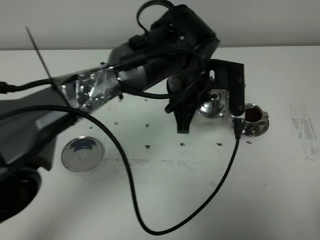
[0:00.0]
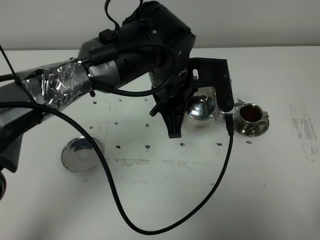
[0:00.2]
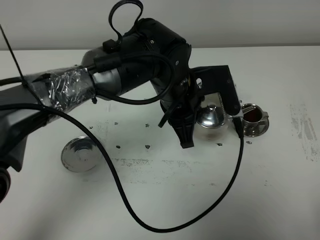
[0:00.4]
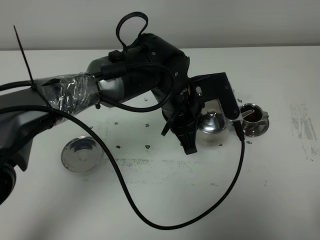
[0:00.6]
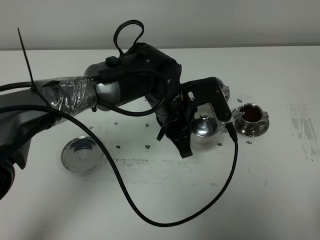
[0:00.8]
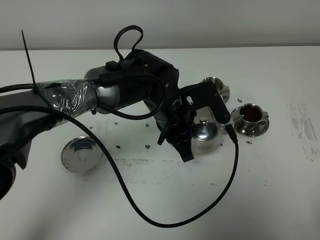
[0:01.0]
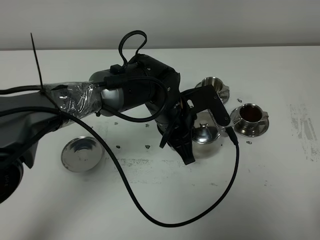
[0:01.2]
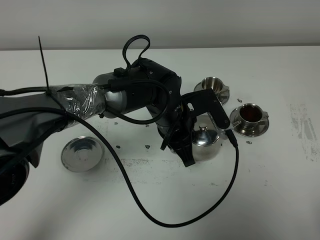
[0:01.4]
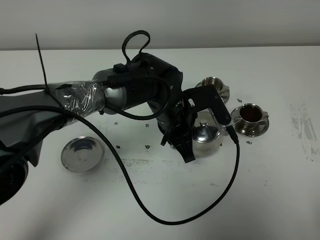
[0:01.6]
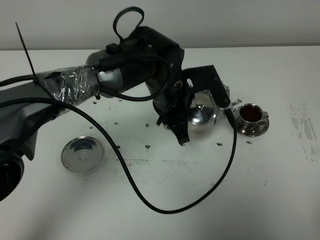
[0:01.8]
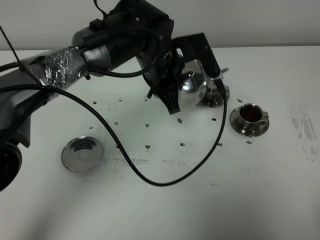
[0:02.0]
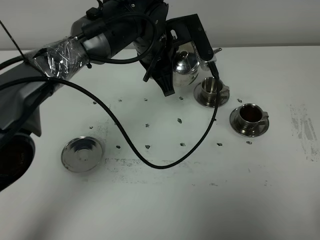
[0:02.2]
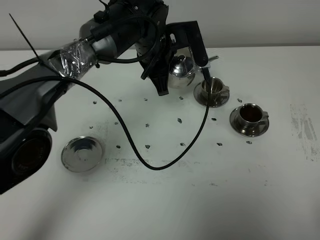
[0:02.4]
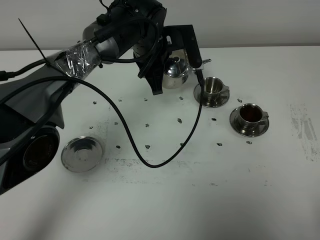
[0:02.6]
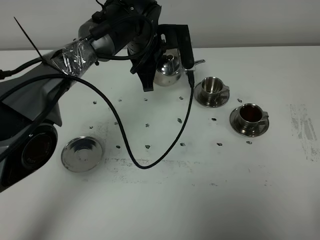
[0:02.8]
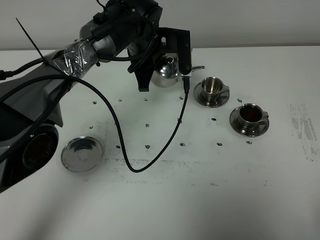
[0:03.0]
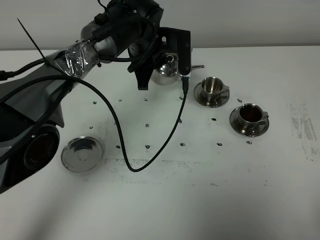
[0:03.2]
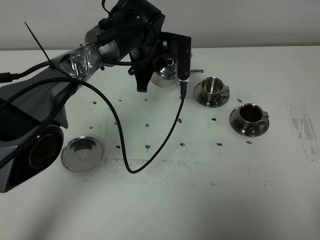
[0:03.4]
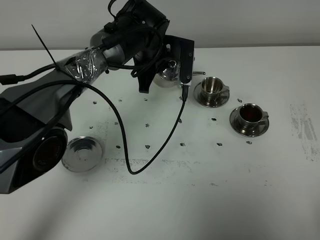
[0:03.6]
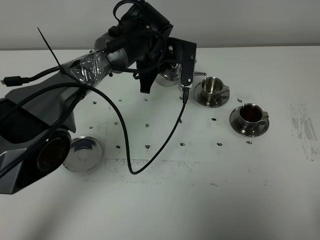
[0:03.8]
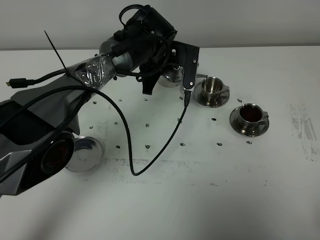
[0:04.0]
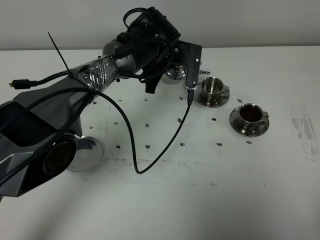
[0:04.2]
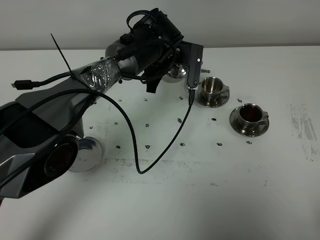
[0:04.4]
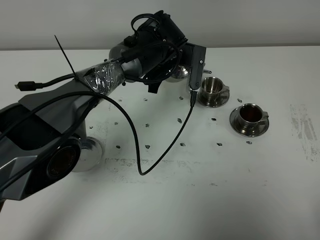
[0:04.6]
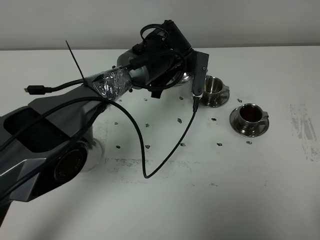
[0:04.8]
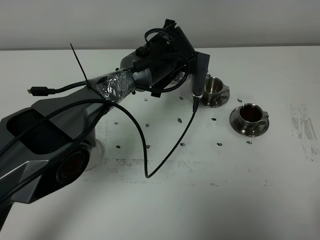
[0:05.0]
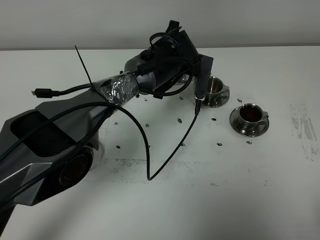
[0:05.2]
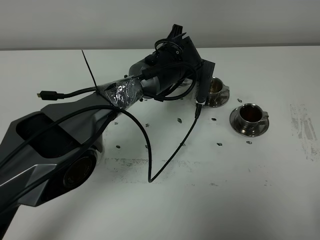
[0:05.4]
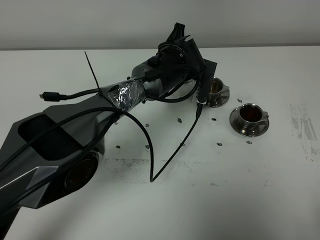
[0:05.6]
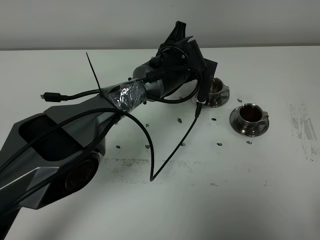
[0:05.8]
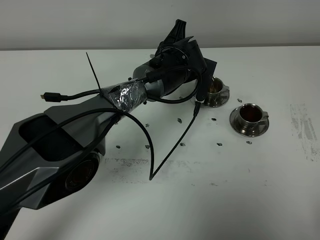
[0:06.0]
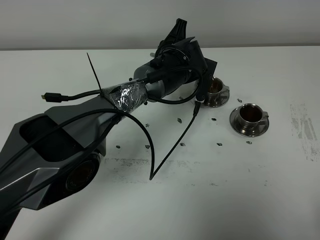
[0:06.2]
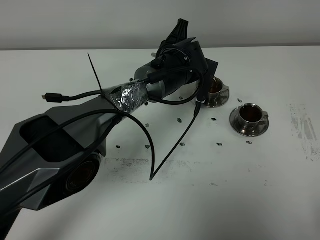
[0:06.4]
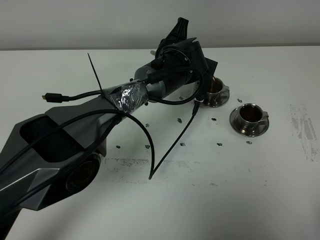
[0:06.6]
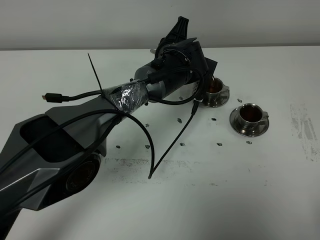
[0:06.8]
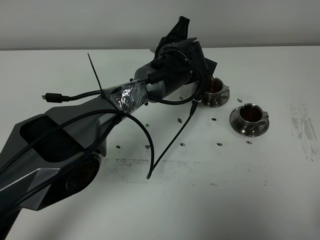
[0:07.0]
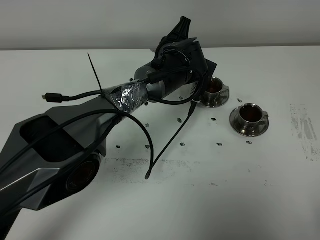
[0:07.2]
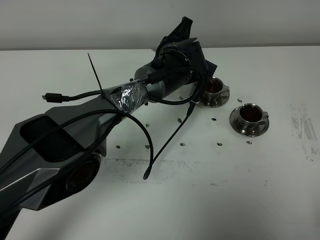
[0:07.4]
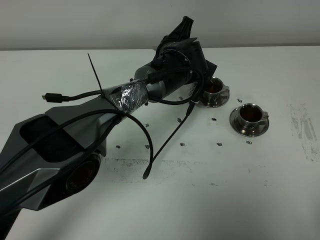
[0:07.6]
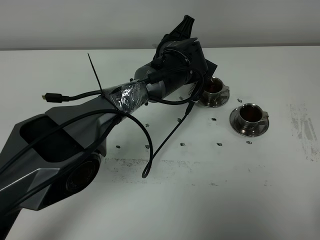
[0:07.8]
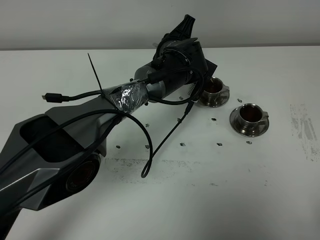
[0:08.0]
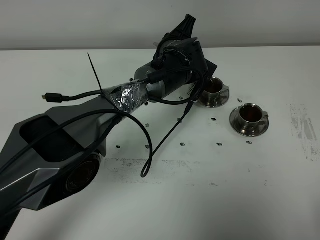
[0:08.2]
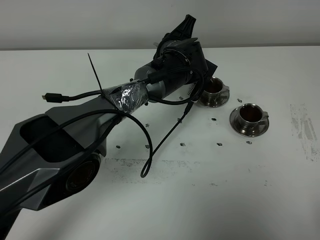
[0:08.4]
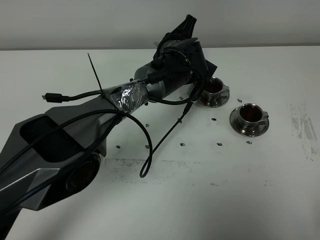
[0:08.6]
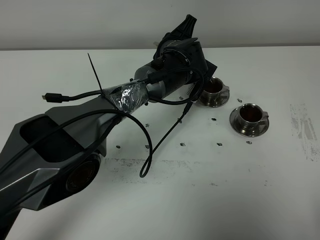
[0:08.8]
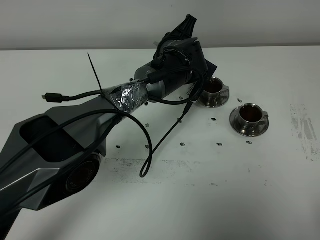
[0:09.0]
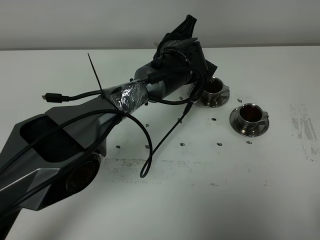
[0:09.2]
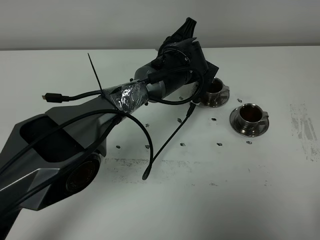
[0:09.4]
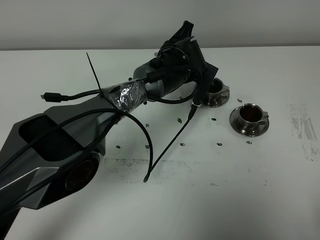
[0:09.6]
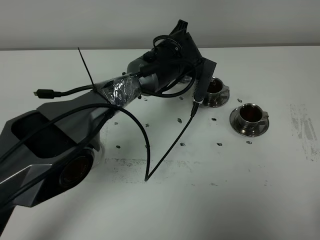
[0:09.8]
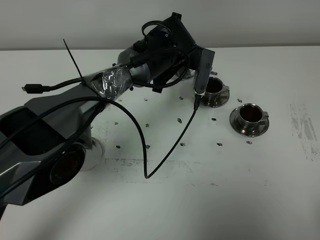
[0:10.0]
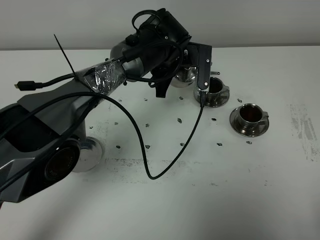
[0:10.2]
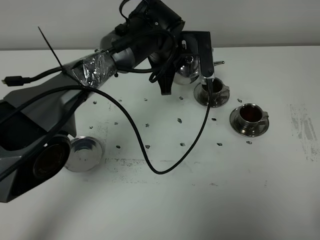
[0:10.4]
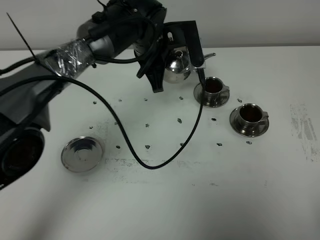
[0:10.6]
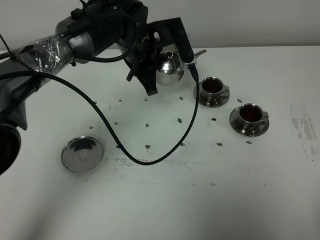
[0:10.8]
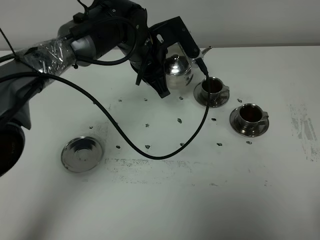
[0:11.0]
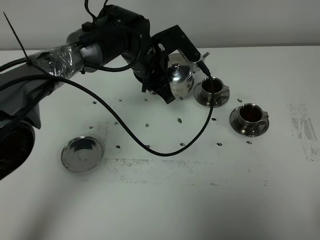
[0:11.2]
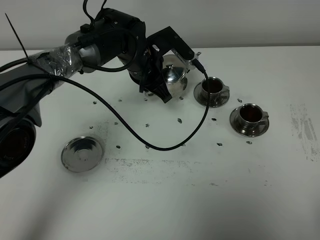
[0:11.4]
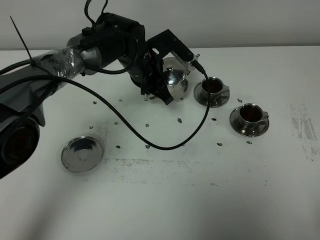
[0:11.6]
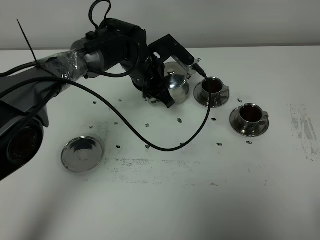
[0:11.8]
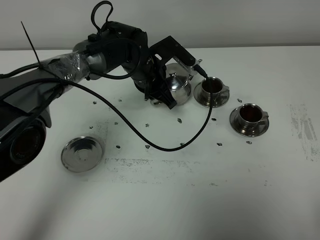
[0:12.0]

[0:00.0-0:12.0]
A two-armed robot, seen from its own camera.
Task of the whole recording: grasp the stainless steel teapot and pour the tea into the two stainless steel teacups one by one, put the stainless steel teapot back in its original place.
Step, 0:00.0 to 0:10.0: Pour tea into the teacup with the left gripper.
0:00.0 to 0:01.6: The left gripper travels downward by roughly 10 cm.
0:01.6 to 0:03.0: The left gripper moves forward, about 10 cm.
0:03.0 to 0:04.4: The grippers stay close to where they were, moving slightly.
0:06.0 to 0:07.6: There are only small adjustments of the grippers.
0:07.6 to 0:09.0: Both grippers stay put.
0:09.0 to 0:10.4: The left gripper shifts by some 5 cm.
0:10.4 to 0:12.0: The left gripper moves downward, roughly 5 cm.

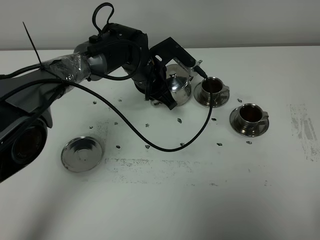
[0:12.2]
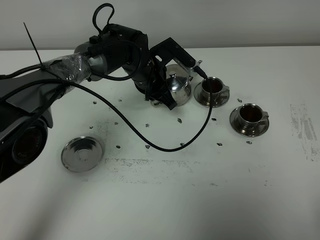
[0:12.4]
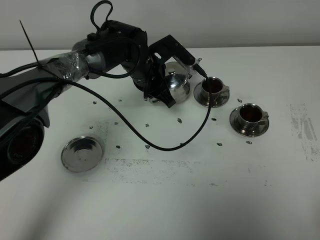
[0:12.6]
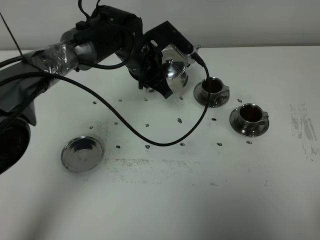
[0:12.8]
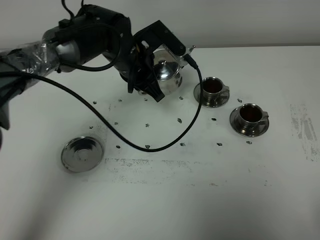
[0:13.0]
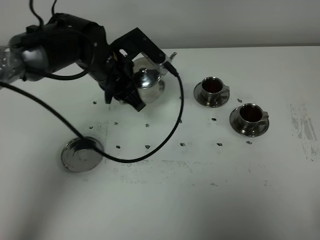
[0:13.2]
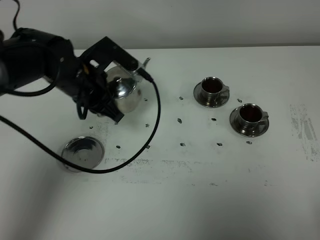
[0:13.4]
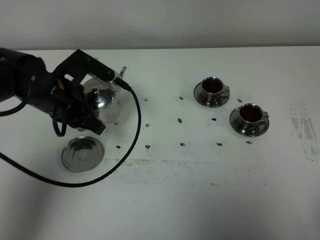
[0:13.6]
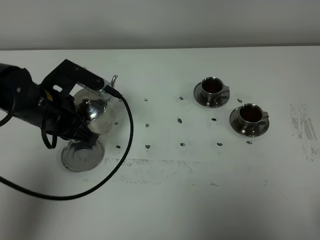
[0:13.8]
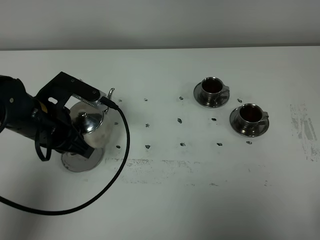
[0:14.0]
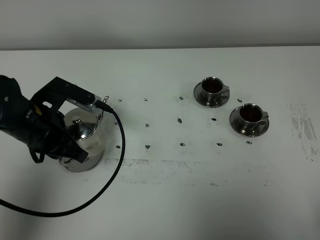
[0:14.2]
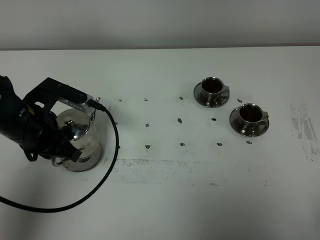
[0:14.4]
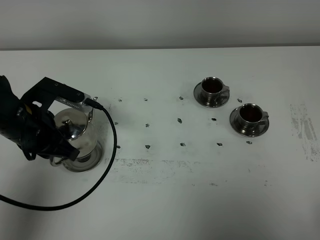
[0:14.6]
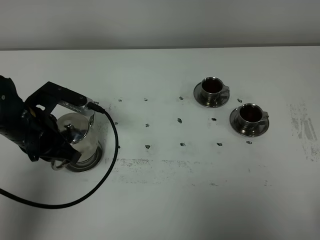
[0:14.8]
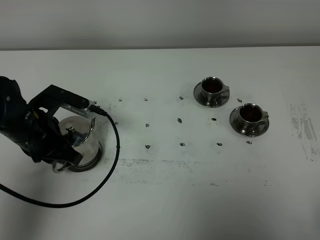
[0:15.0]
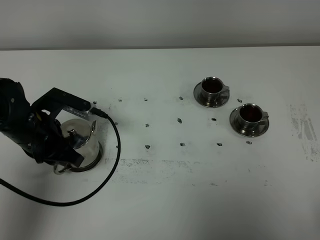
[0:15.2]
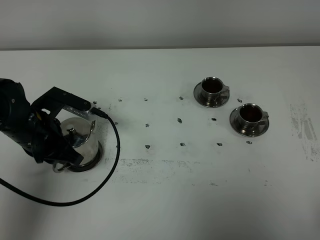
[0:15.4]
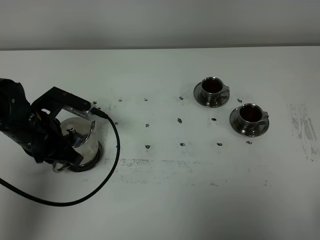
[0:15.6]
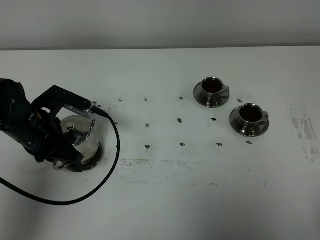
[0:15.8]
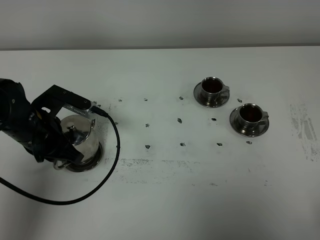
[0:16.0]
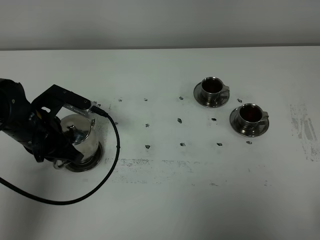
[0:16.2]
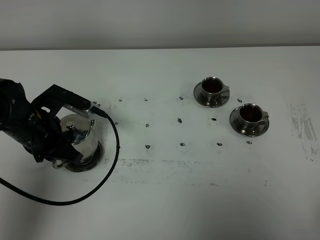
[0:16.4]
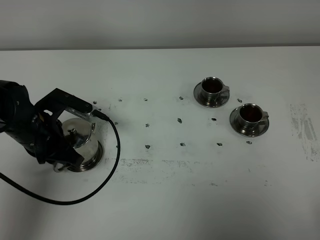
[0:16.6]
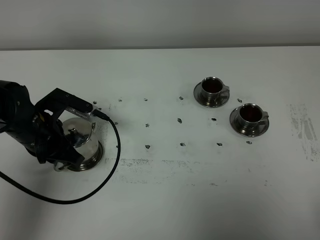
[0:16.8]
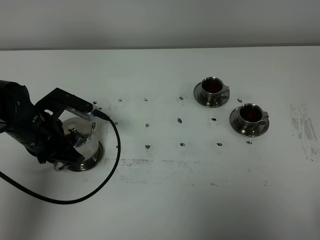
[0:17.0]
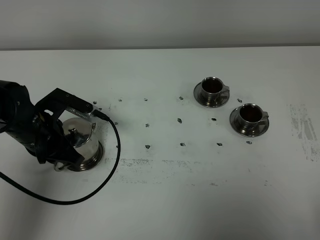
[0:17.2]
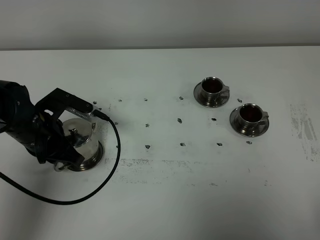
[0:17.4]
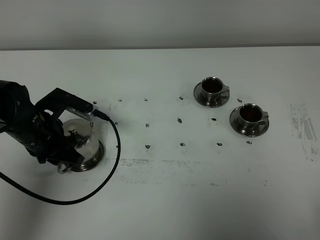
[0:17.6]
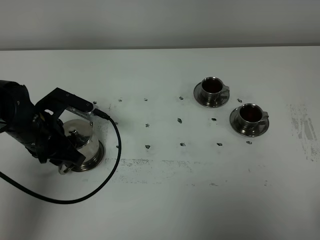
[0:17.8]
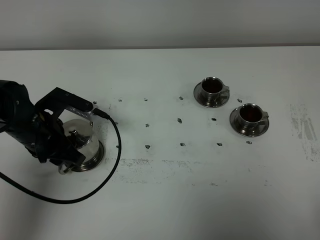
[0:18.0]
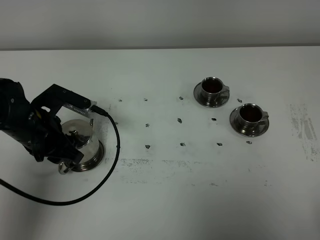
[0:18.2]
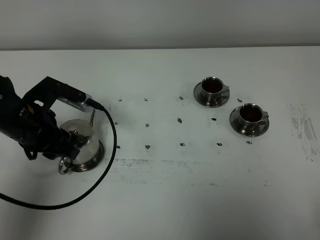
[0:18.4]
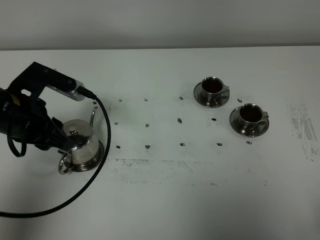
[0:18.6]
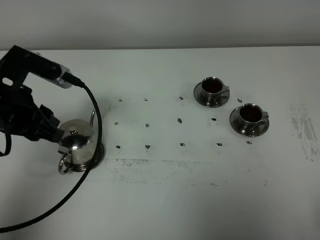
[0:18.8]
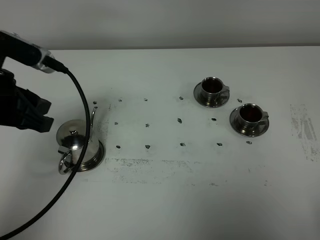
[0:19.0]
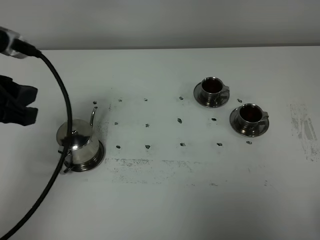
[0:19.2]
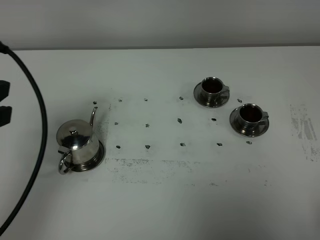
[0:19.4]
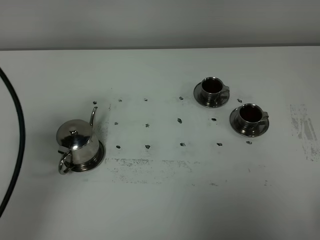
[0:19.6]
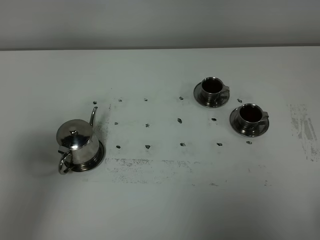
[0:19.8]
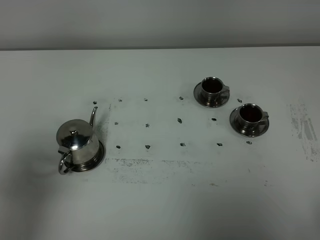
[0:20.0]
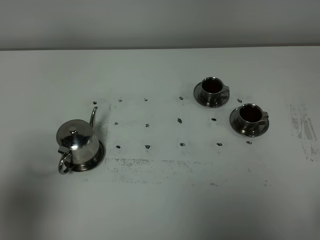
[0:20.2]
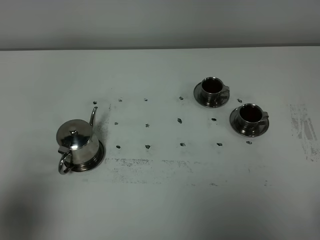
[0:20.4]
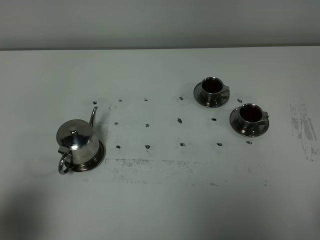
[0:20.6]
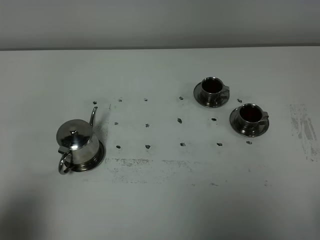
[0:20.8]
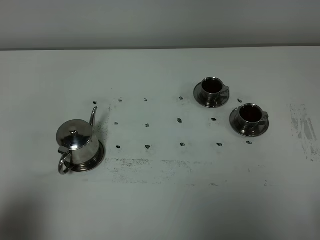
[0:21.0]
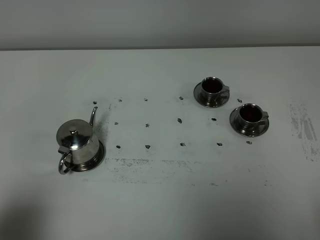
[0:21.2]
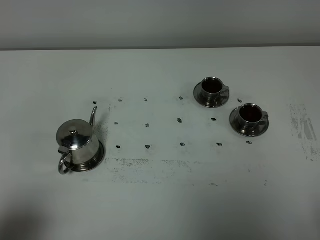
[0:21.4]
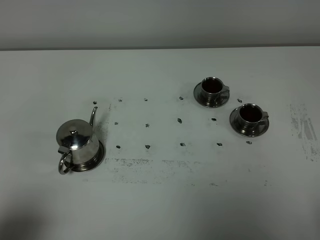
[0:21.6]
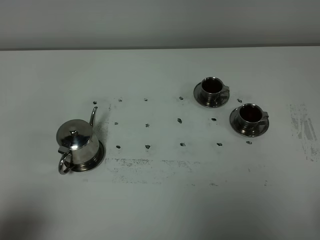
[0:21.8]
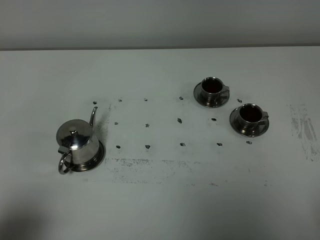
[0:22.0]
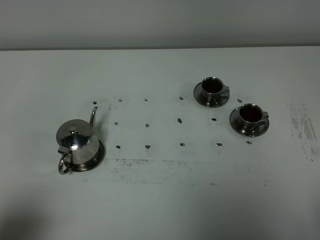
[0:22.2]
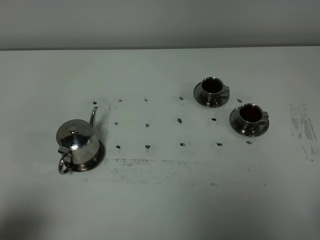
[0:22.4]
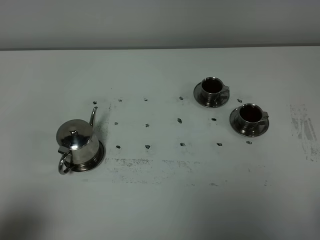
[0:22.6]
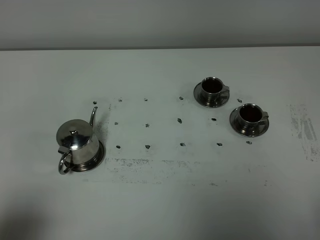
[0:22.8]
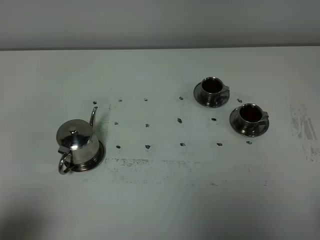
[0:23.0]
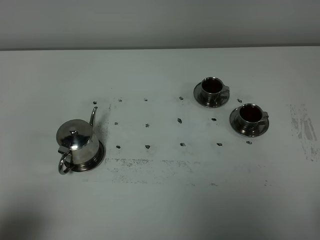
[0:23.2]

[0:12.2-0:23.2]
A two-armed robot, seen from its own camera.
Task of the whole recording: grasp the stainless steel teapot and pour the tea into the two stainless steel teacups one by one, put the stainless steel teapot back in its original place.
0:12.2 to 0:13.8: The left gripper travels to the left and backward by about 20 cm.
0:13.8 to 0:15.4: The grippers stay close to where they were, moving slightly.
0:15.4 to 0:17.0: Neither gripper changes place.
0:17.0 to 0:18.4: The left gripper opens.
0:18.4 to 0:20.0: The left gripper is displaced backward and upward by about 25 cm.
0:20.0 to 0:21.6: The left gripper travels downward and backward by roughly 15 cm.
0:21.6 to 0:23.2: The two grippers keep their place.
